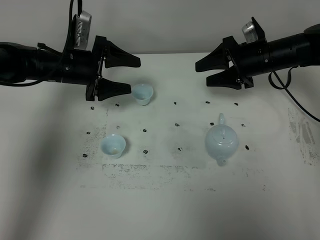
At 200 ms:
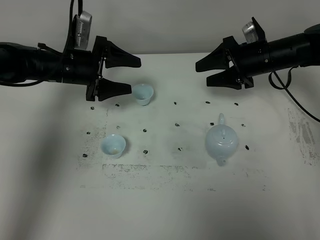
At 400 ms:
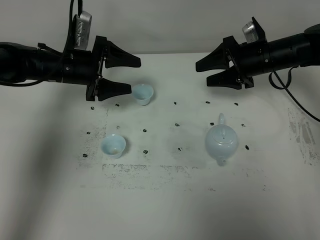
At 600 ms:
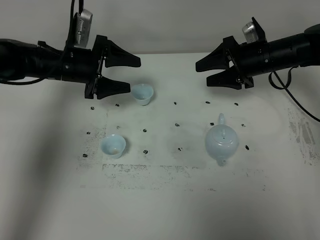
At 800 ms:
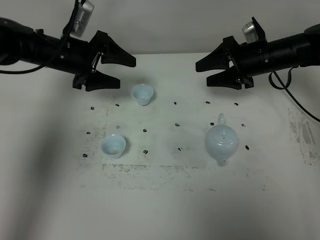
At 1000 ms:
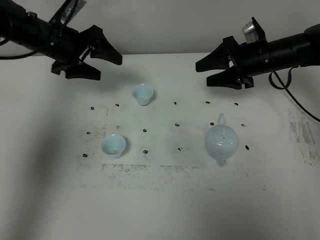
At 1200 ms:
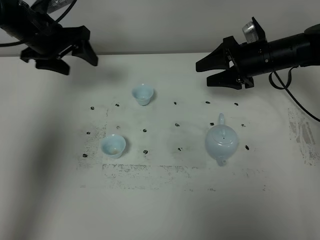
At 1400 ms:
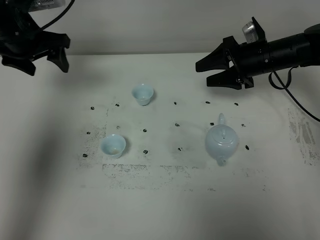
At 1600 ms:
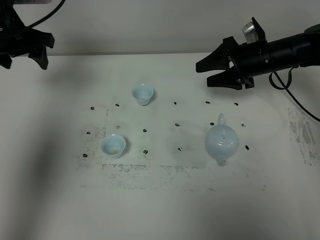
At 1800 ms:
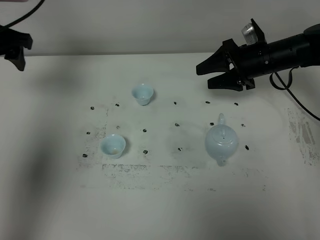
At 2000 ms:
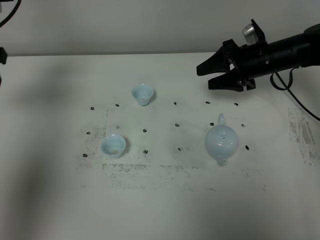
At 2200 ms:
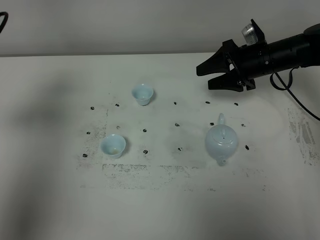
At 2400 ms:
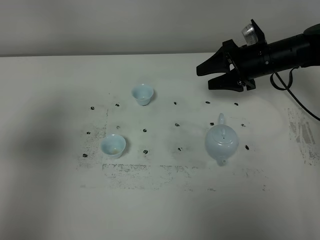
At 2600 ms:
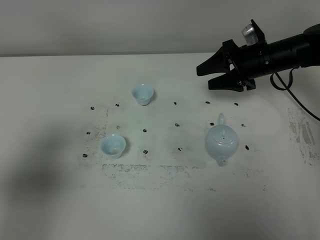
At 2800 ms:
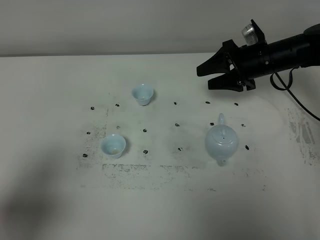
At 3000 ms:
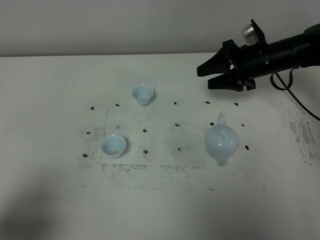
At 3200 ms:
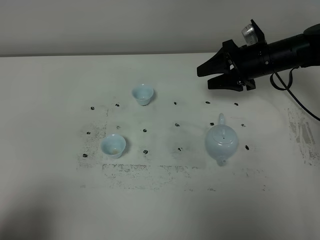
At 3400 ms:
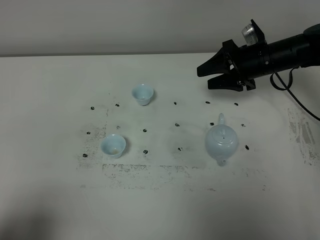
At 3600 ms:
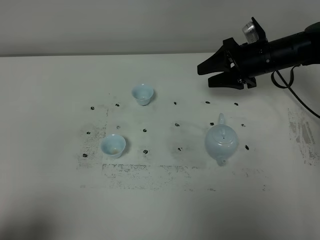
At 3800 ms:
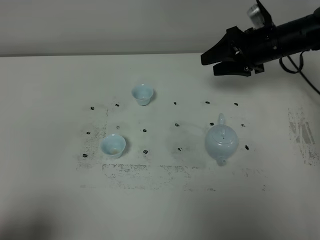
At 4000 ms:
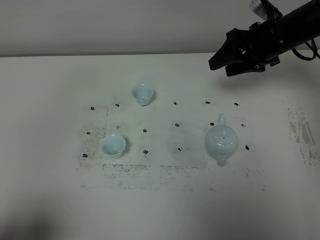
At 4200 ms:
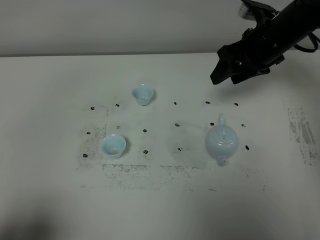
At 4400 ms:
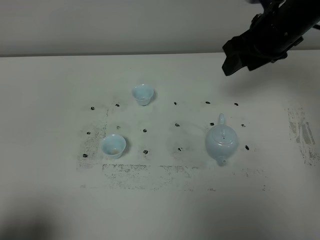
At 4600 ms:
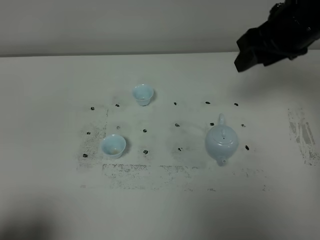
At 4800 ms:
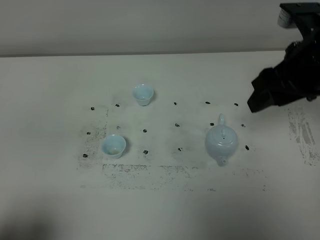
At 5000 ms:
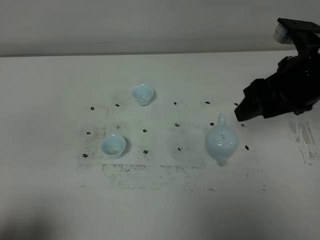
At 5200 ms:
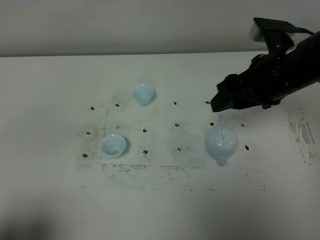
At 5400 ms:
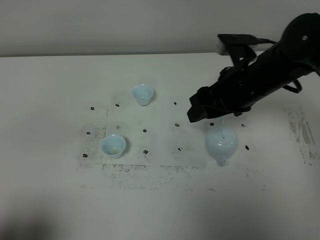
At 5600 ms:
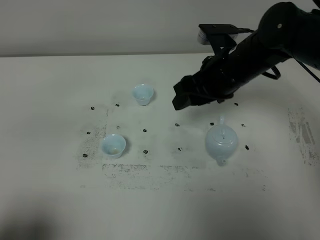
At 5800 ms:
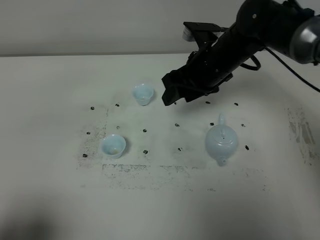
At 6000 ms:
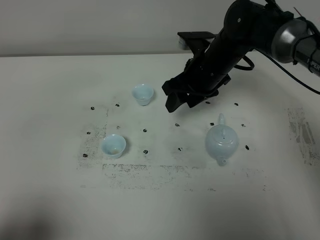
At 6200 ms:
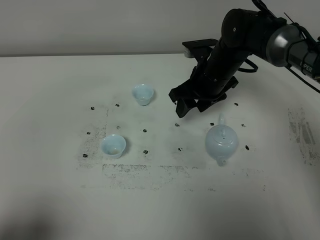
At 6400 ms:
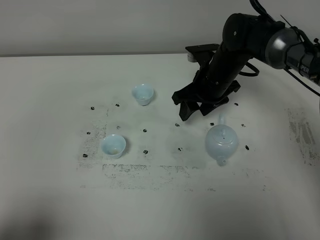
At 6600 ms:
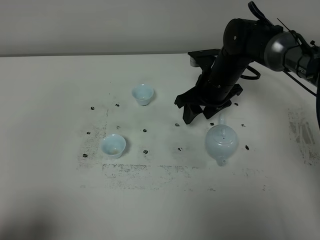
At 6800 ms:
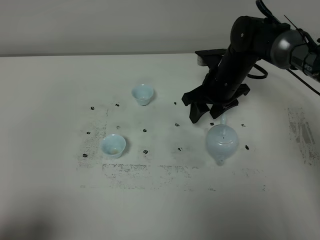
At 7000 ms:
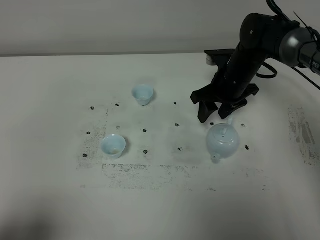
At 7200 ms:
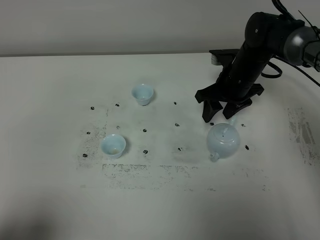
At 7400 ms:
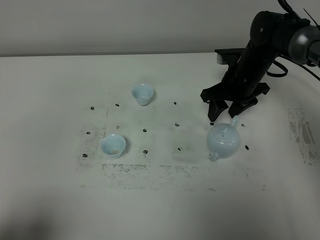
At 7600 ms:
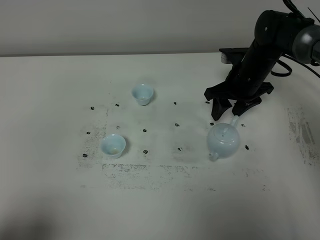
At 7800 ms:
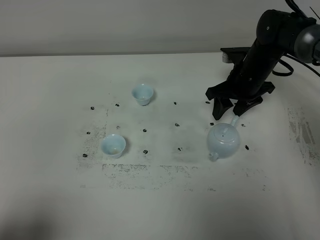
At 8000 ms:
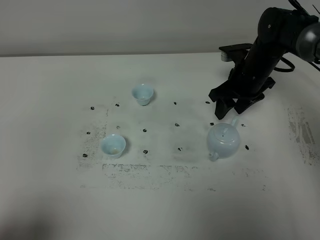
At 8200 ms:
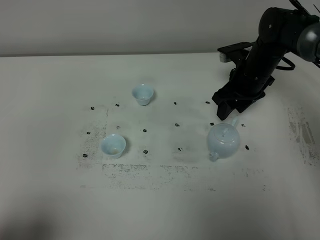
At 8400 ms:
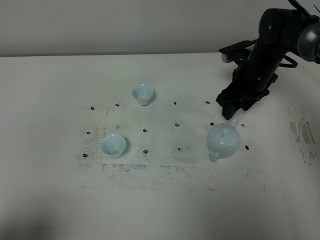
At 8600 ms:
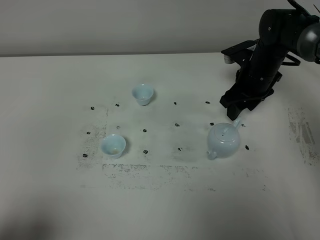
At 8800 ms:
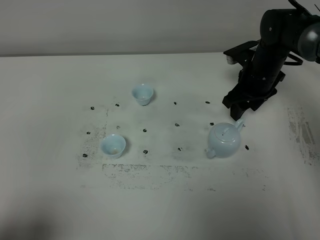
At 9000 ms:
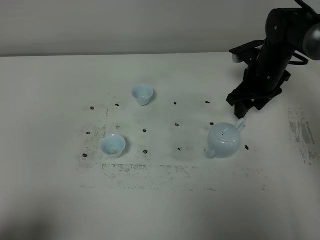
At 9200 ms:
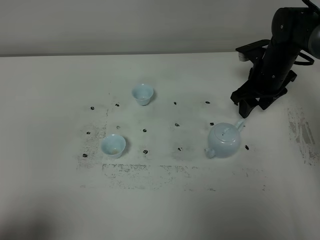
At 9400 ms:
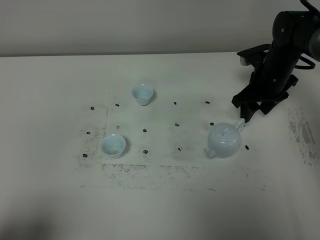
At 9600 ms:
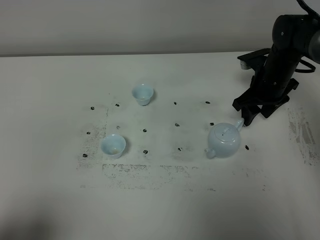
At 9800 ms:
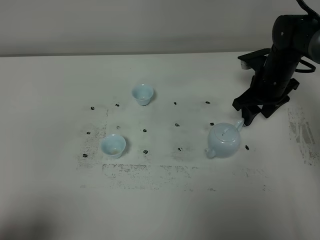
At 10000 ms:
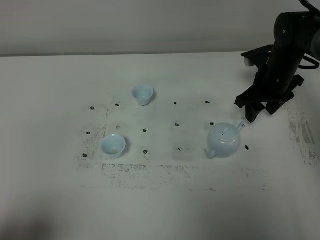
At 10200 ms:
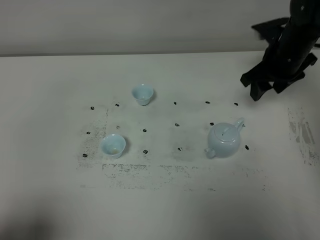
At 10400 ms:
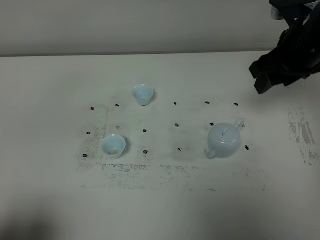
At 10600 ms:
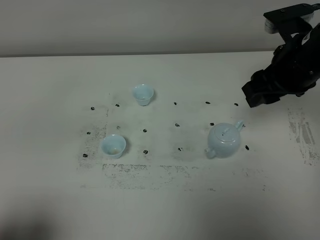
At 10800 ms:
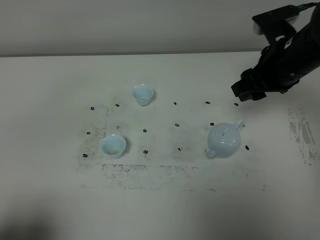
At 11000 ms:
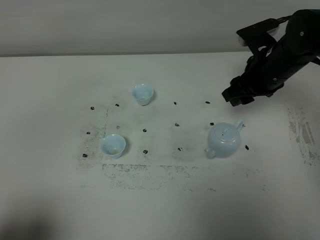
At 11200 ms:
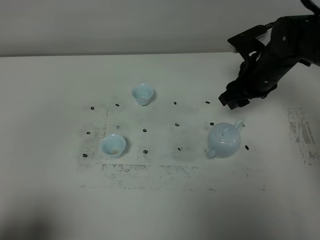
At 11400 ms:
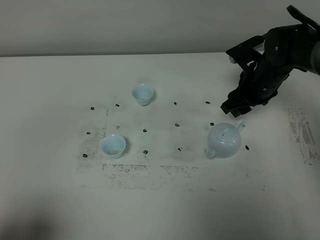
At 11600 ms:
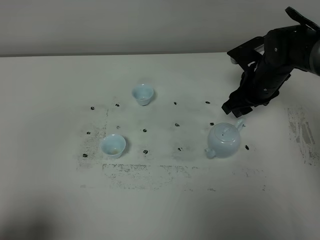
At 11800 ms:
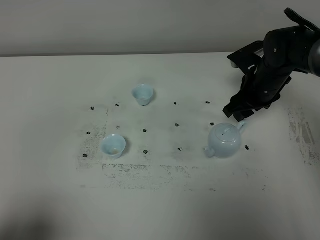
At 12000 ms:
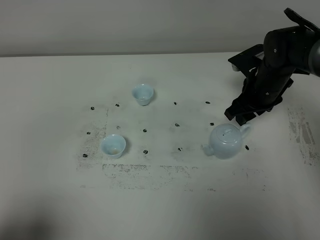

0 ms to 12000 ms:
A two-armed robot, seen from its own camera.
Task of the whole recording: grasp the blue porcelain teapot and pour the tea into the two blue porcelain teacups one by one, put the blue porcelain teapot back in its original place.
0 ms to 1600 ms: The left gripper heads upward and to the left, covering some 15 cm.
1600 ms to 3000 ms: The left gripper travels backward by some 40 cm.
3000 ms to 4400 ms: The right gripper shifts some 15 cm upward and backward.
4400 ms to 6000 ms: The right gripper heads downward and to the left, covering about 15 cm.
6000 ms to 7600 ms: The right gripper goes some 10 cm to the right.
7600 ms to 9000 ms: The grippers make only small movements.
9000 ms to 10400 ms: The right gripper moves upward and backward, roughly 20 cm.
10400 ms to 12000 ms: The right gripper shifts approximately 15 cm downward and forward.

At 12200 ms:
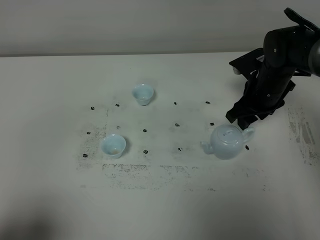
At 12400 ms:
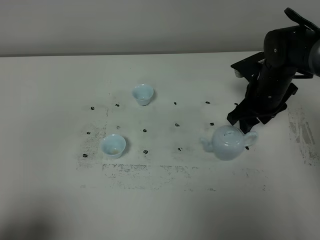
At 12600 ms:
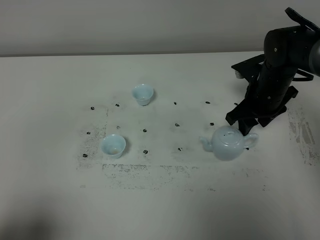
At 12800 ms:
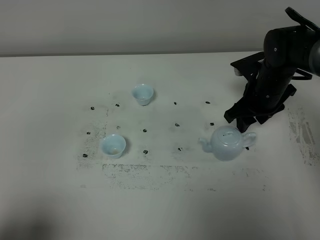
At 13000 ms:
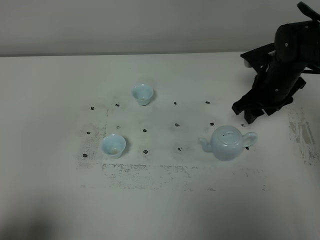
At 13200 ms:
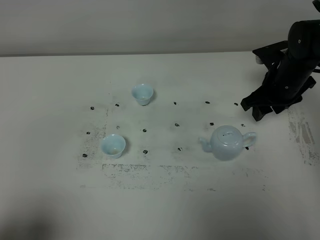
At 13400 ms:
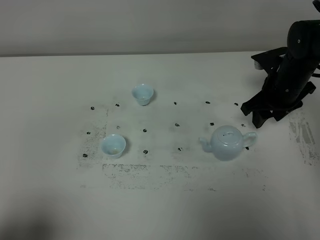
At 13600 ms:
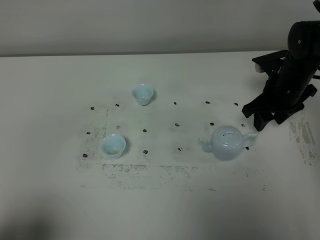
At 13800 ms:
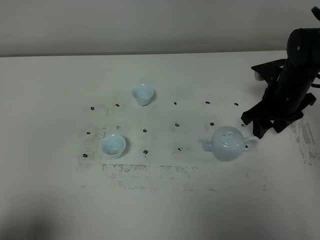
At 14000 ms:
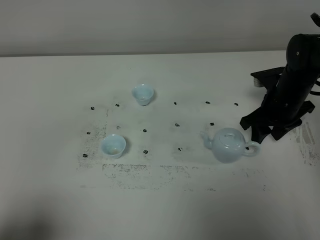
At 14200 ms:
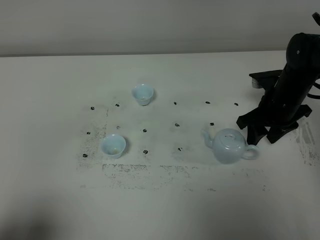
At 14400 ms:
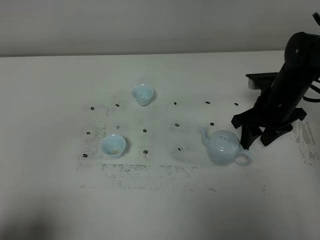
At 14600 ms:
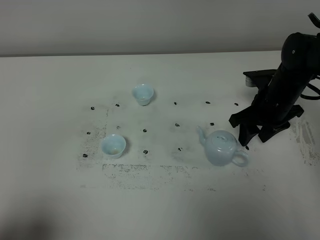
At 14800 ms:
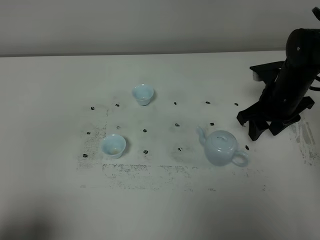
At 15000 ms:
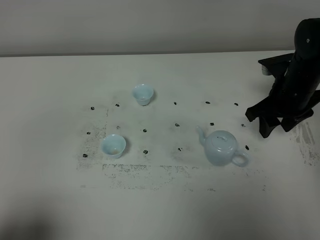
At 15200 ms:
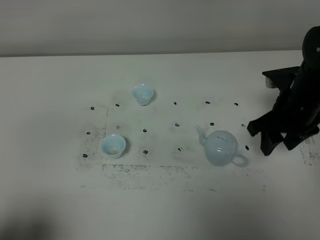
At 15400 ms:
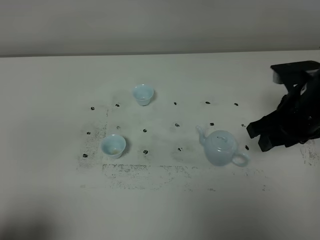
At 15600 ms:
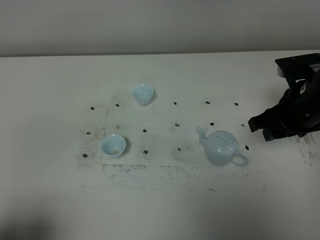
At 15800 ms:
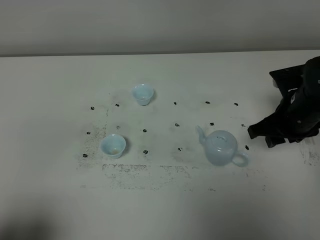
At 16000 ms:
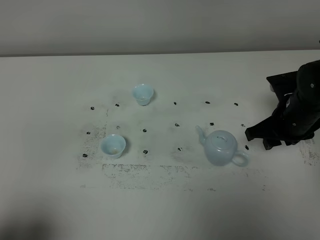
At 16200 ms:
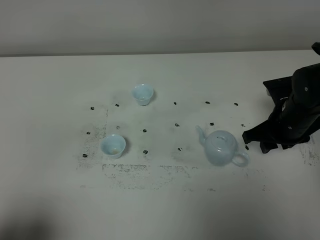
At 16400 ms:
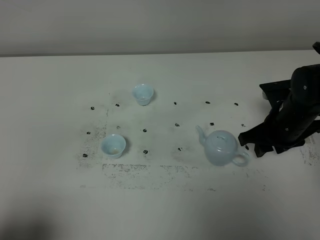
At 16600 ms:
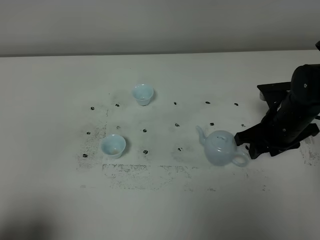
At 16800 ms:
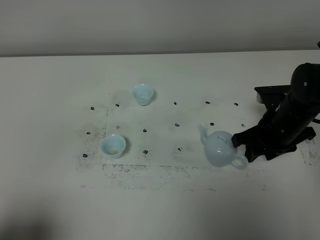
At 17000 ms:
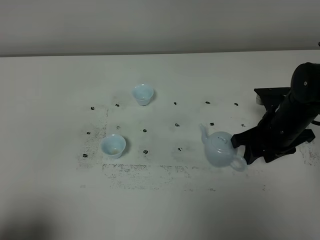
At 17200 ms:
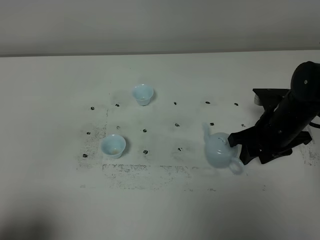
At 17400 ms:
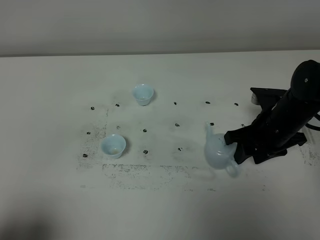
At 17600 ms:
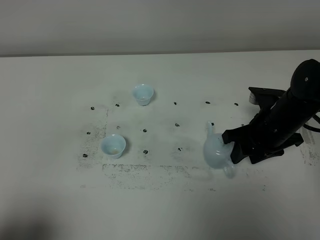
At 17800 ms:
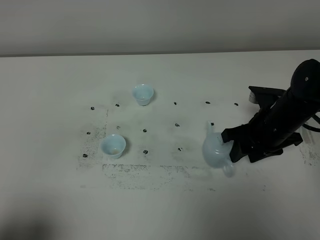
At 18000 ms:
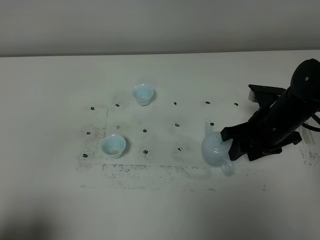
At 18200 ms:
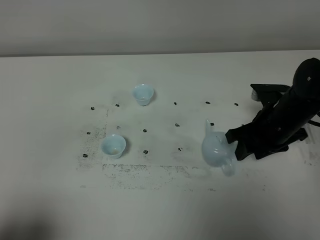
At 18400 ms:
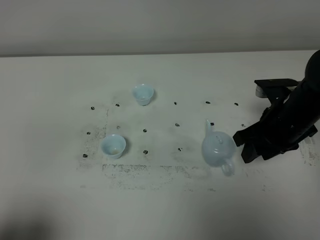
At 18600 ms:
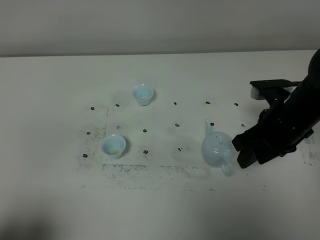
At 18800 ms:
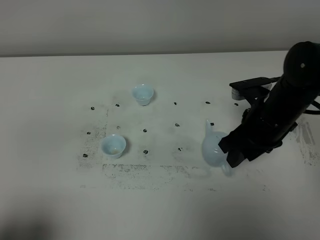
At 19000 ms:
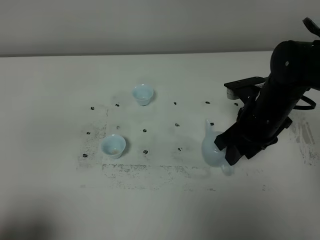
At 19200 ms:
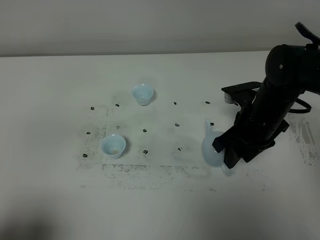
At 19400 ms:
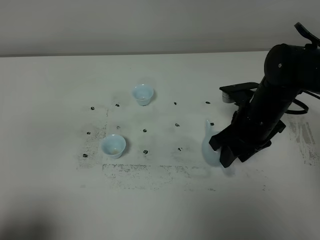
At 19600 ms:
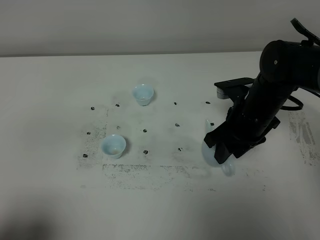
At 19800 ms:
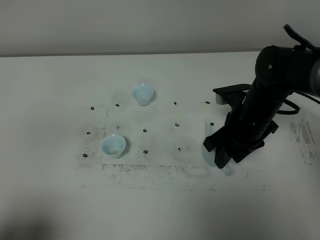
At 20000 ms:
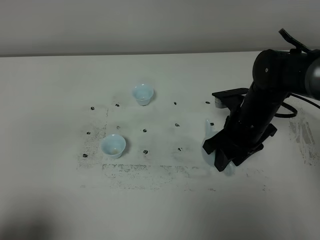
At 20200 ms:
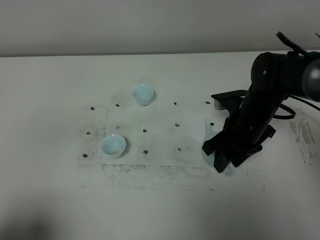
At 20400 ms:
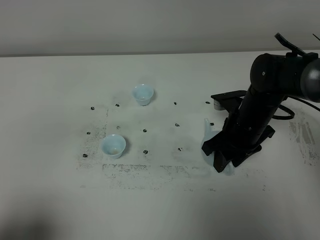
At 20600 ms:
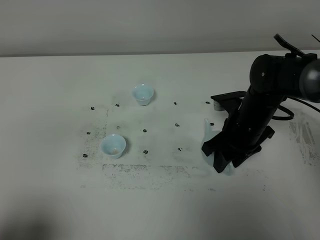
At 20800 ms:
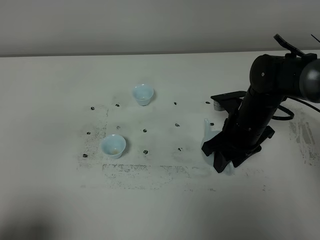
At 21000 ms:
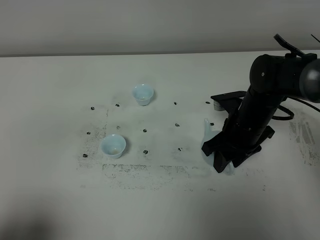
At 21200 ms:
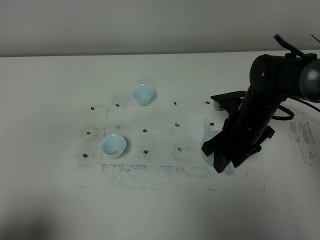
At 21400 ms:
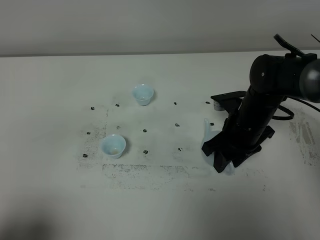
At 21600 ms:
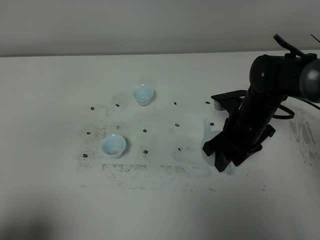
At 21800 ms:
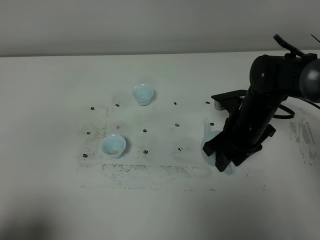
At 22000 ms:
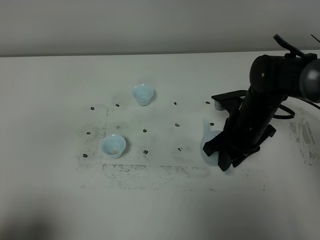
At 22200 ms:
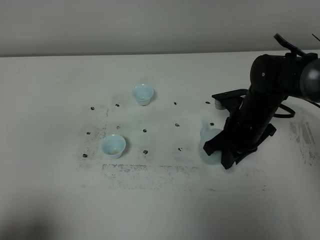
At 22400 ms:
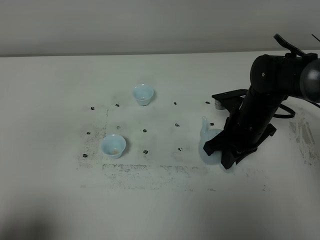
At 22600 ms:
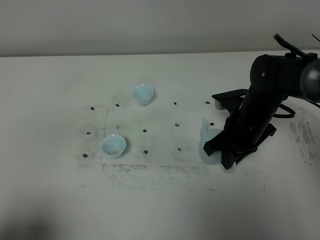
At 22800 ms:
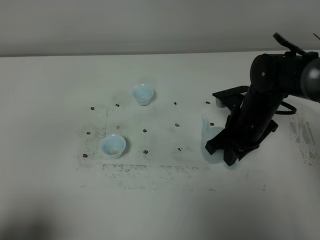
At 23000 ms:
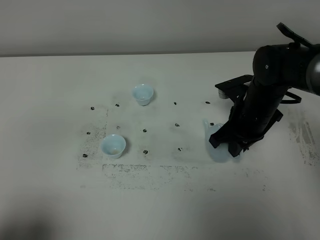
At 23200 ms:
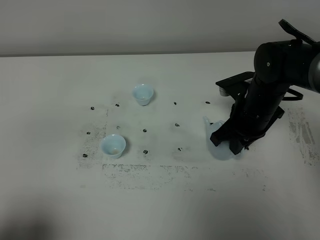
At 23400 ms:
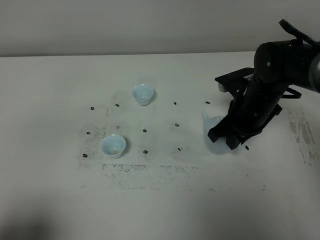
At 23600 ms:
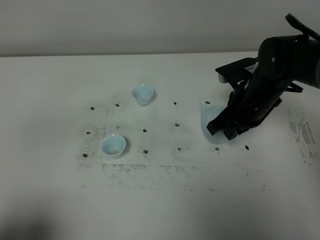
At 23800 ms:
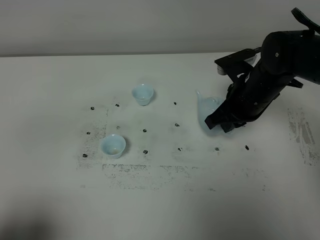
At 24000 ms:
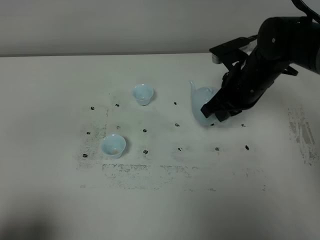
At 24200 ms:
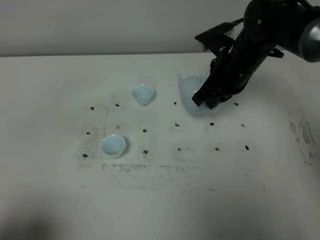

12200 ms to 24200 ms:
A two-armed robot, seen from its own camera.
Task of the whole recording: grasp the blue porcelain teapot and pour the tea into the two blue porcelain teacups one by one, put the blue porcelain teapot back in its original place.
Step, 12200 ms to 23400 ms: Pick up the teapot with the right gripper.
12200 ms to 13800 ms: The grippers make only small movements.
13800 ms to 15200 ms: The right gripper shifts approximately 10 cm backward and upward.
15200 ms to 16600 ms: The right gripper heads downward, covering some 5 cm.
16600 ms to 18200 ms: The grippers stay close to where they were, moving slightly.
18200 ms to 19800 ms: The right gripper changes place by approximately 5 cm.
19800 ms to 21200 ms: There are only small adjustments of the grippers.
21200 ms to 22600 ms: The right gripper closes its fingers.
22600 ms to 24200 ms: The right gripper is displaced upward and forward by approximately 10 cm.